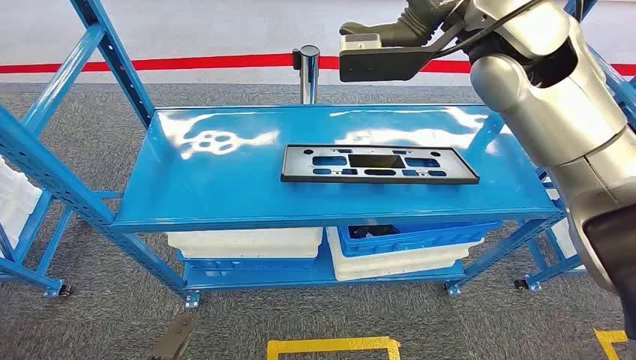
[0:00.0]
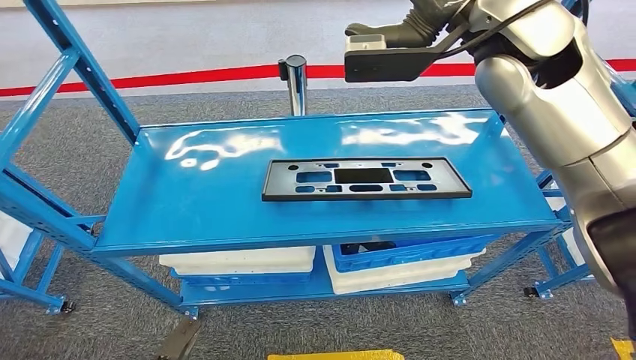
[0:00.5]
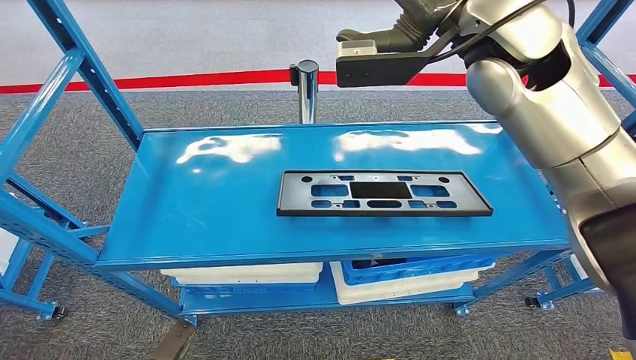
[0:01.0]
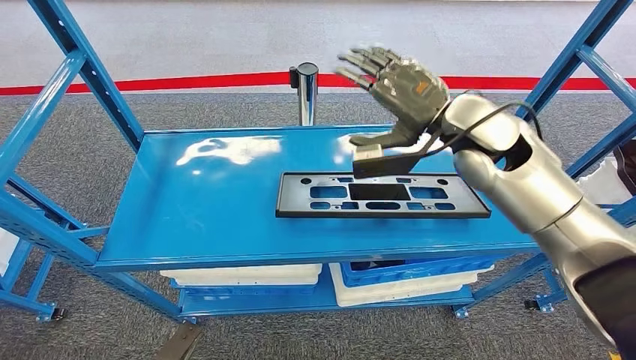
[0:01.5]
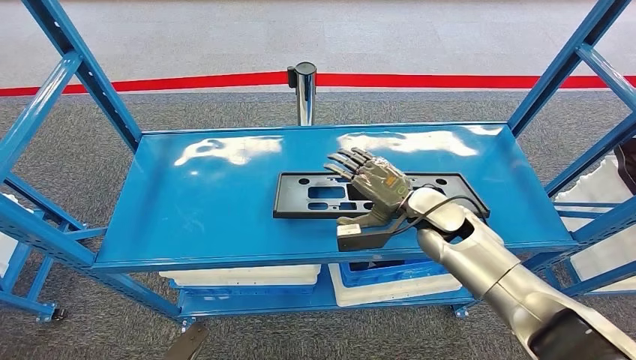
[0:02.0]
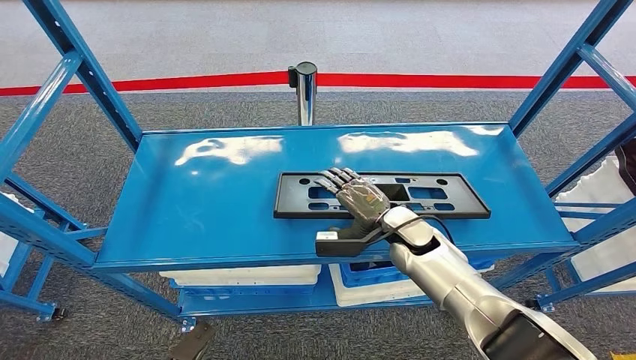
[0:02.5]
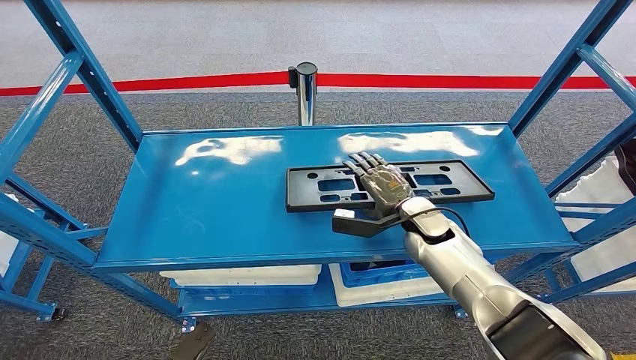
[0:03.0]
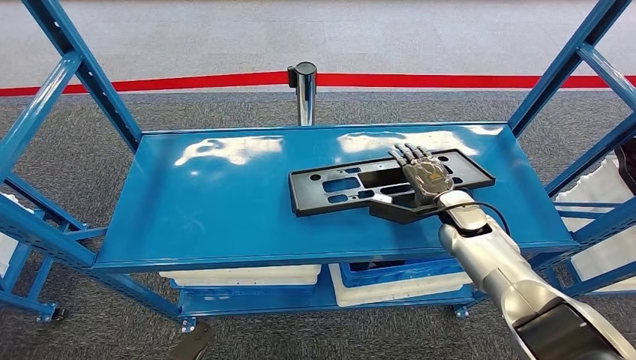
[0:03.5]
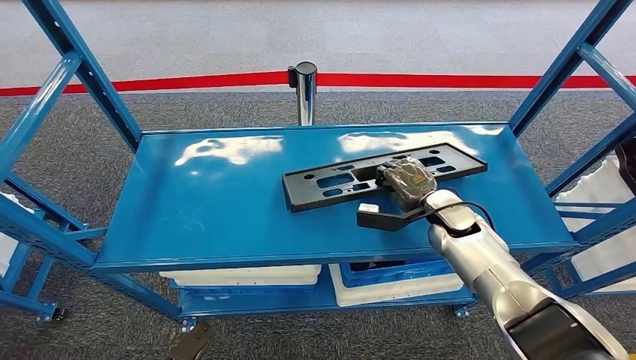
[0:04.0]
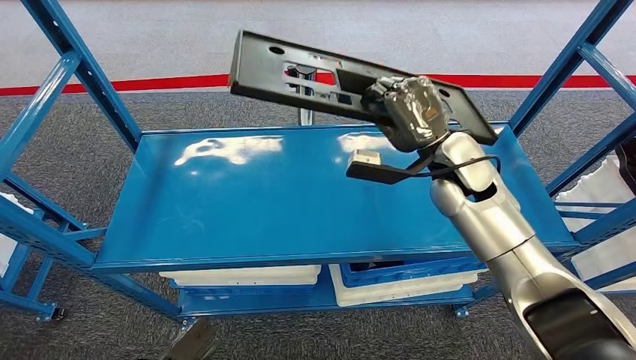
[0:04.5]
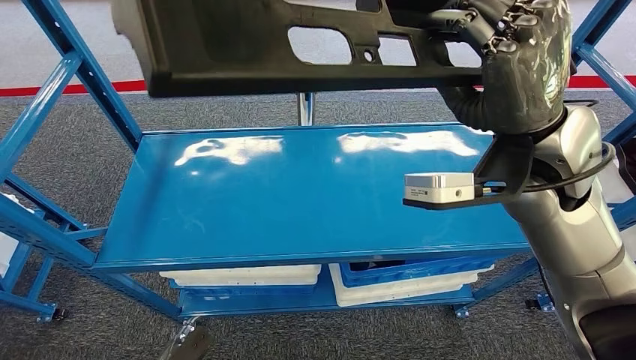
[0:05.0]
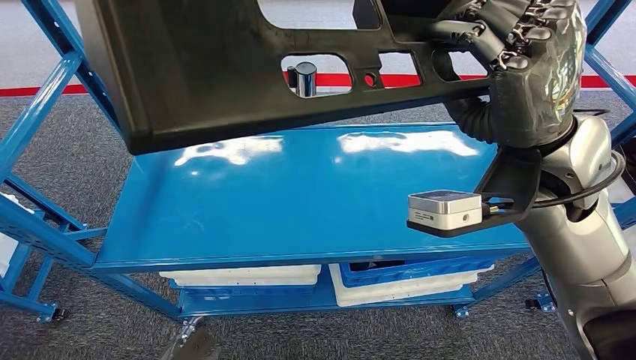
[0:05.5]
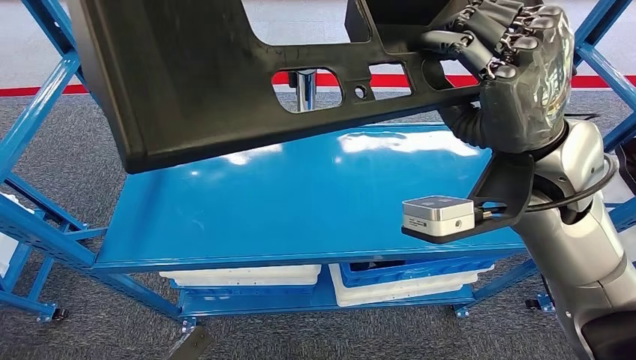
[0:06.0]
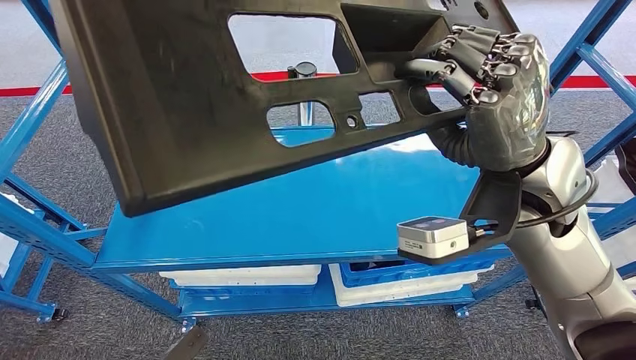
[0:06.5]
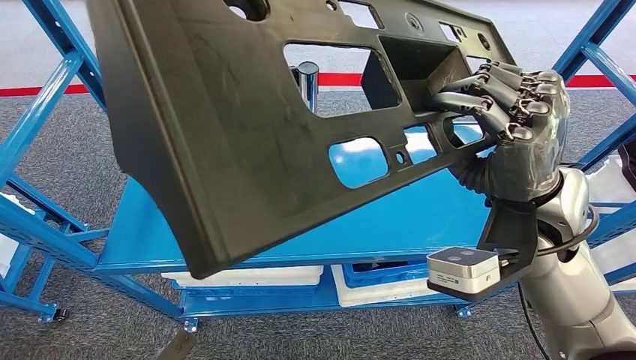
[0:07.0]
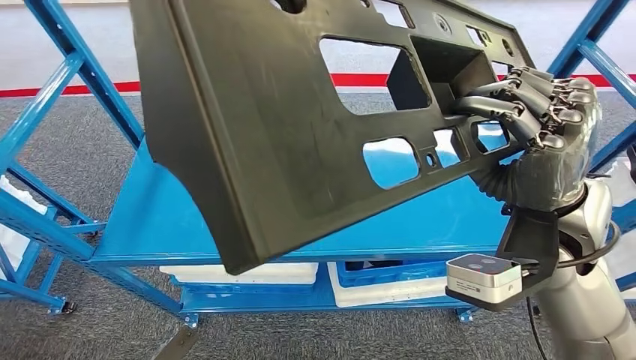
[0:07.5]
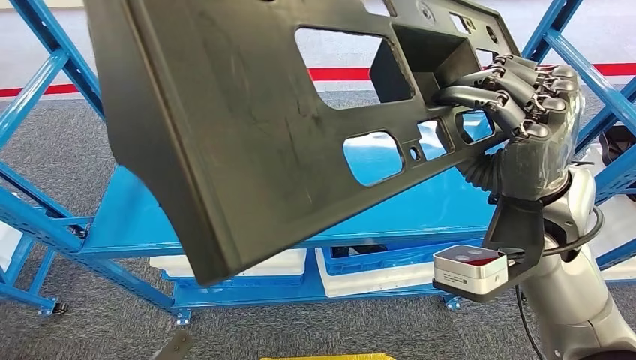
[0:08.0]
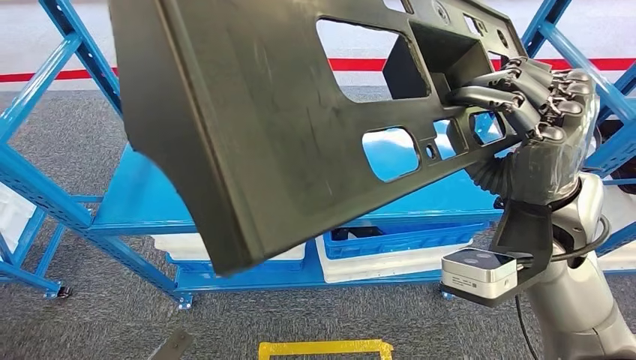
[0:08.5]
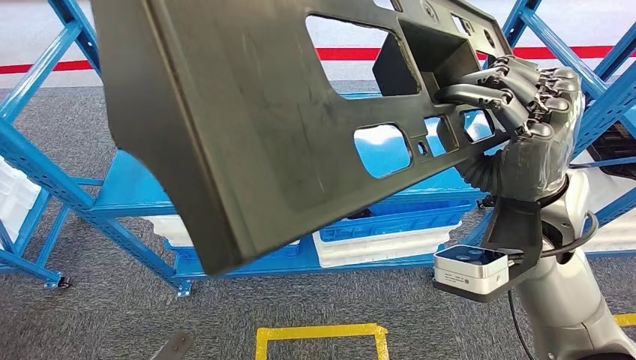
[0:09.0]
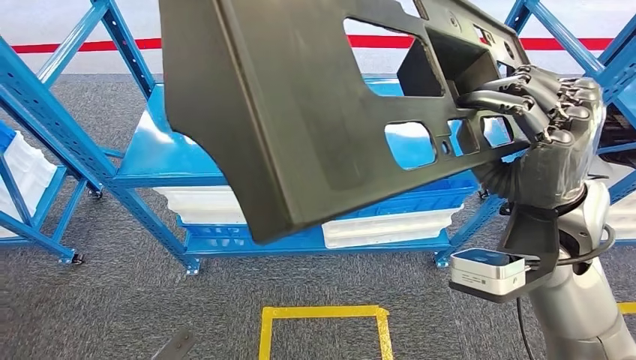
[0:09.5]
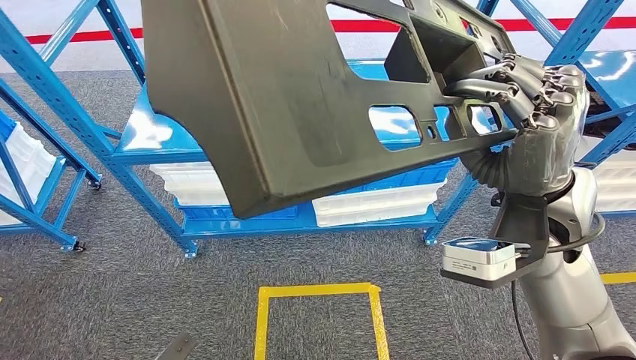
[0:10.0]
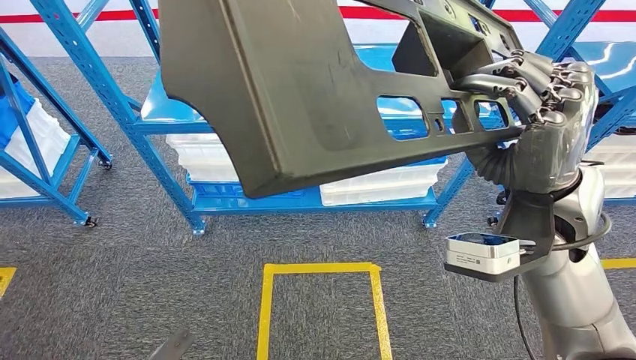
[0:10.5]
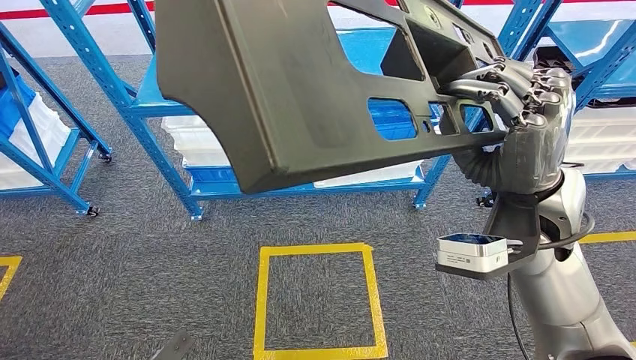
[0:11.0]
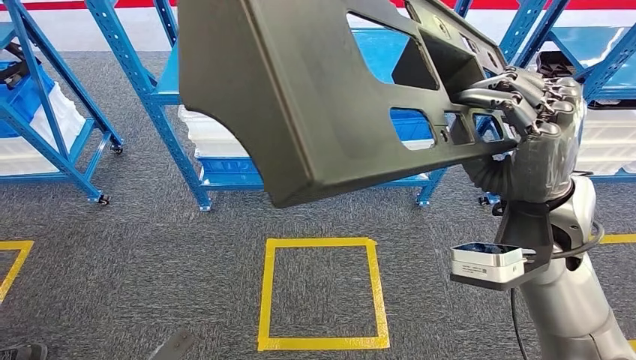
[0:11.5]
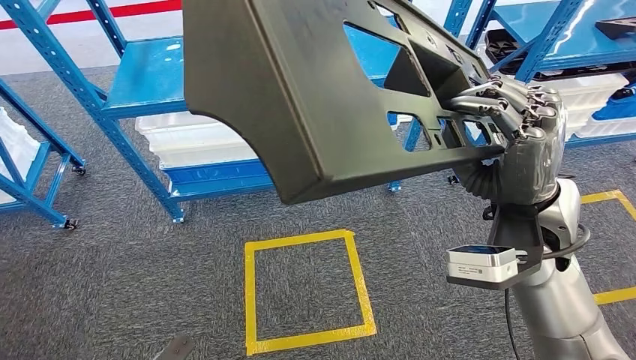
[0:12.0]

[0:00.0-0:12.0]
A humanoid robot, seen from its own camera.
Step, 0:00.0 to 0:05.0: Pick up the large material from the shelf.

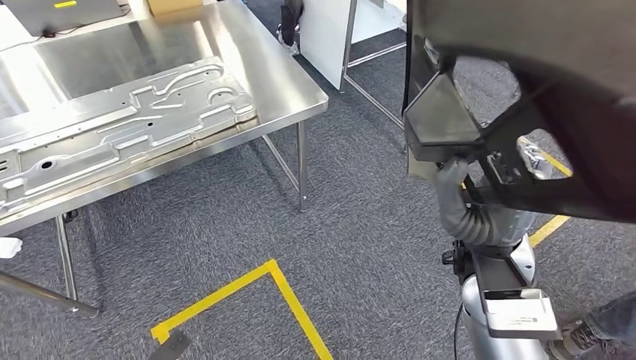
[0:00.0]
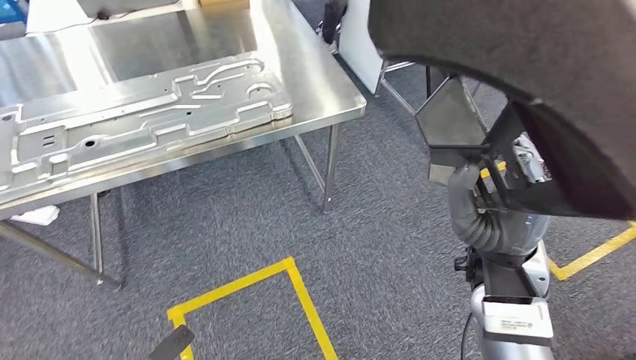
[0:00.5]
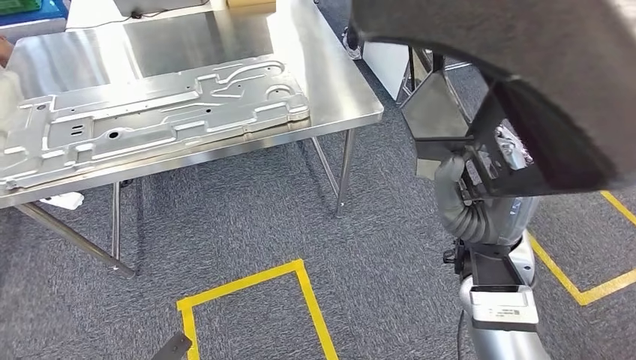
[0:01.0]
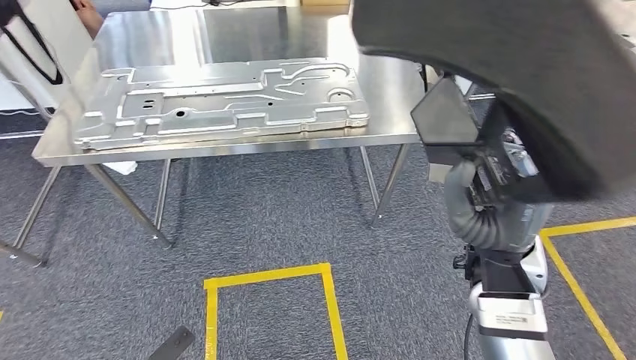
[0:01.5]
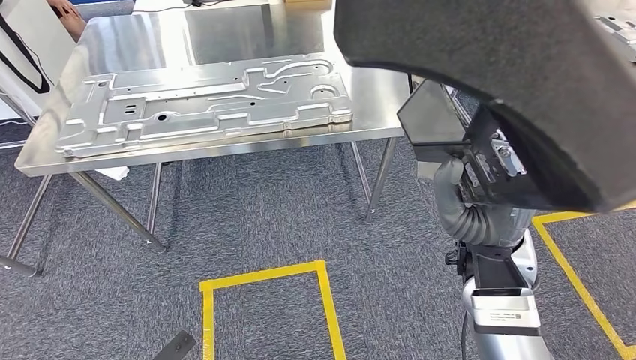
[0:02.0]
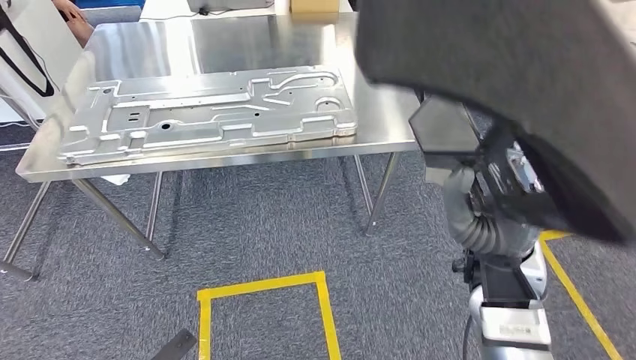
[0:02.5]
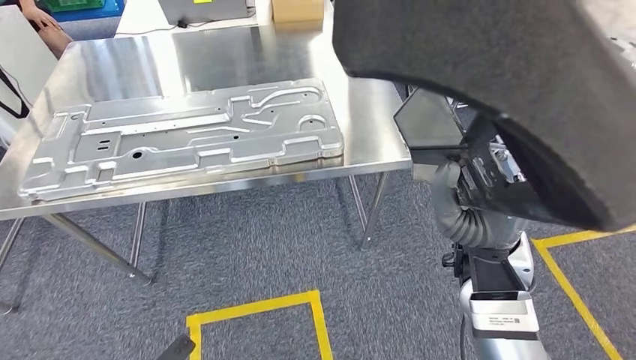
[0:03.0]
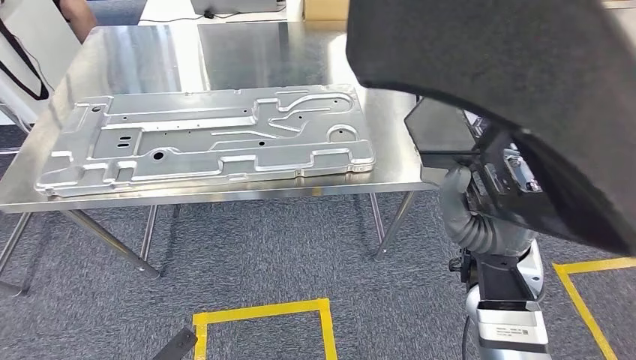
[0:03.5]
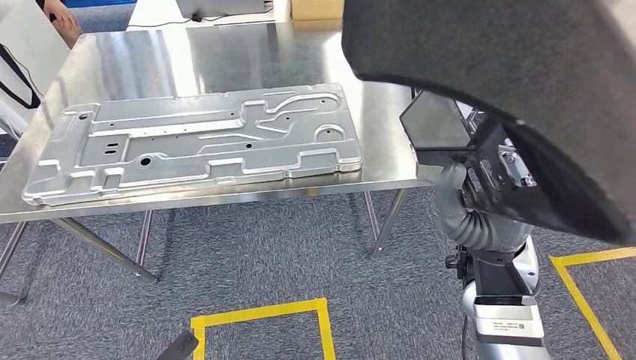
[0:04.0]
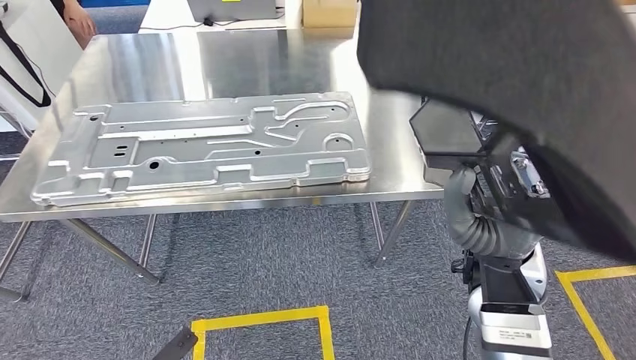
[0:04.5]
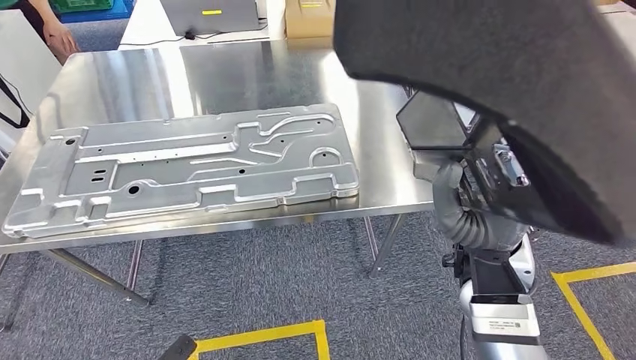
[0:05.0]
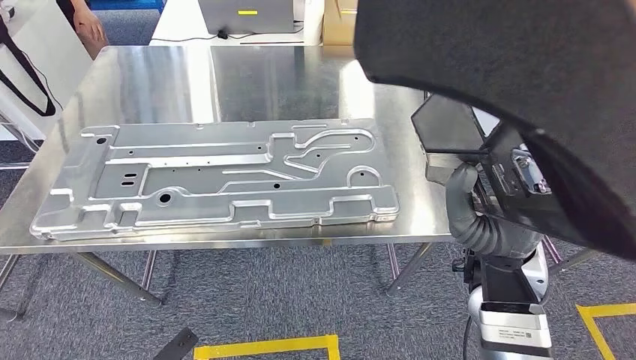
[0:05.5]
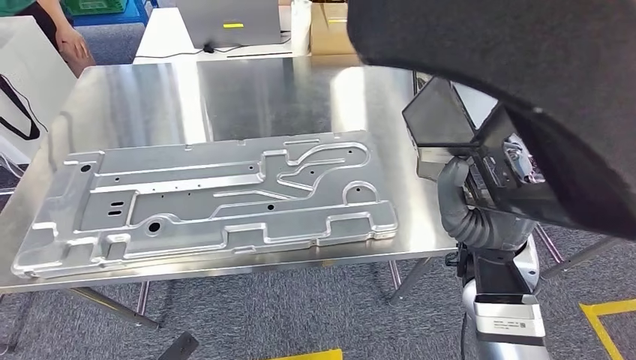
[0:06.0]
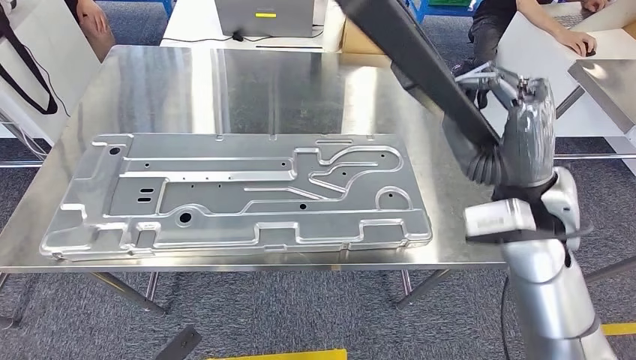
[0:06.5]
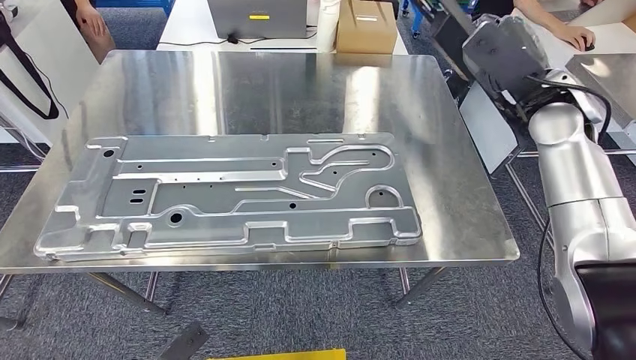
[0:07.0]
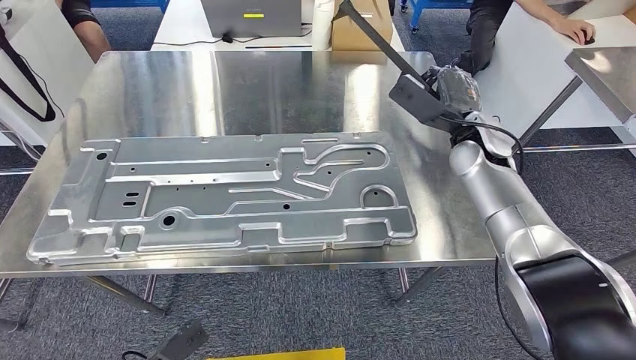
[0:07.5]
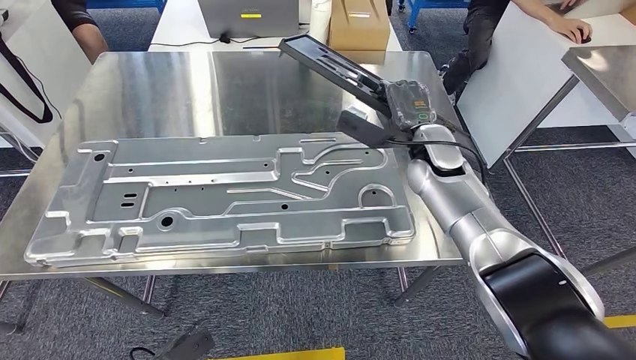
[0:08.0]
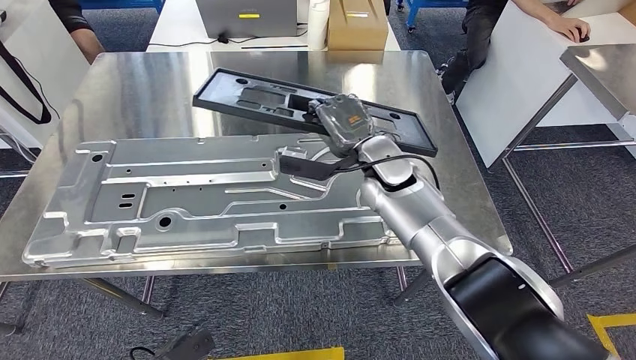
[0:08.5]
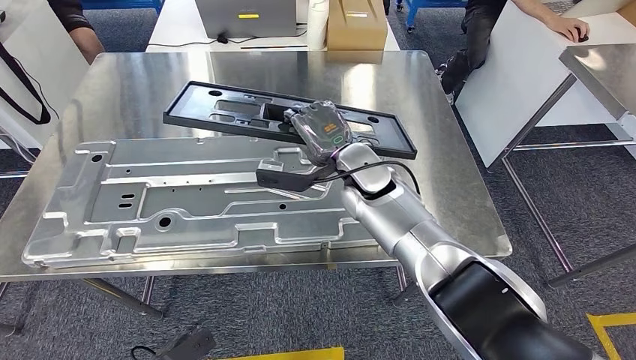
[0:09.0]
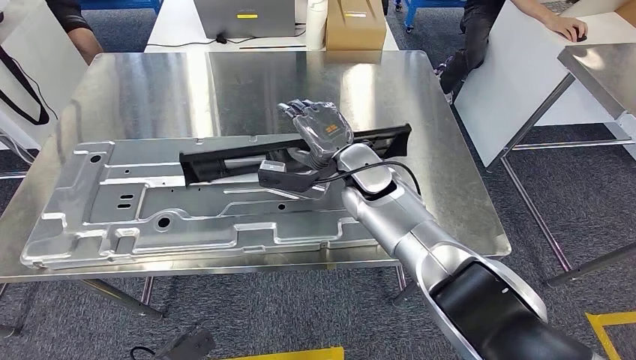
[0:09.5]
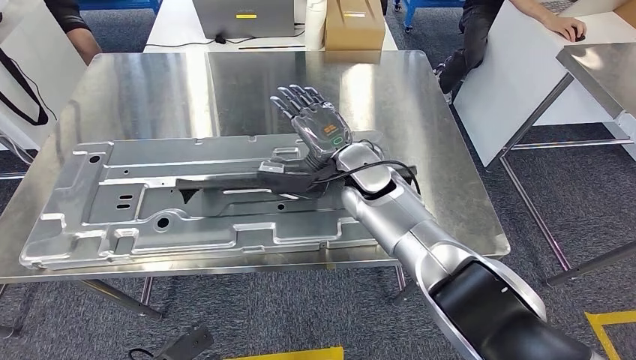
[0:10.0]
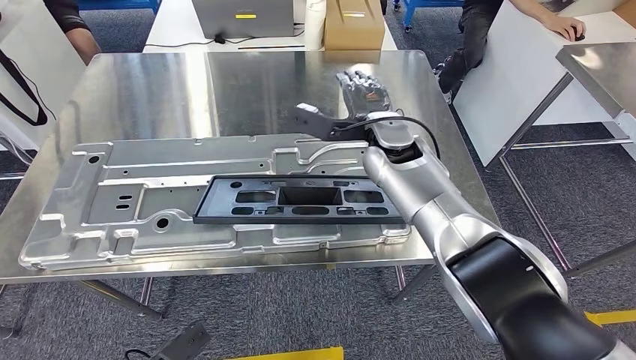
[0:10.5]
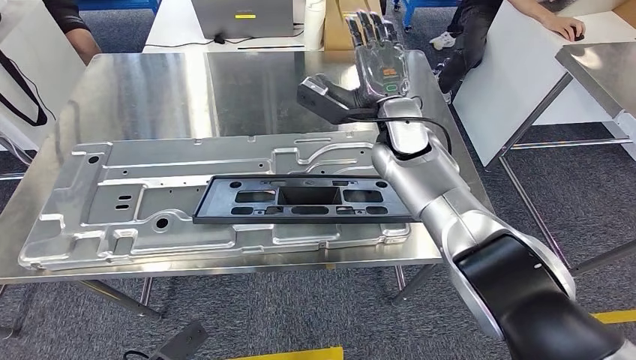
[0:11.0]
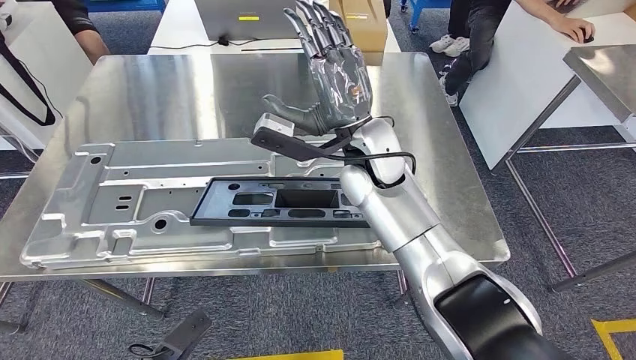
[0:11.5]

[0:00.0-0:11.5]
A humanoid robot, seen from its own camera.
Step, 0:00.0 to 0:02.0: Move the large material to the workbench.
